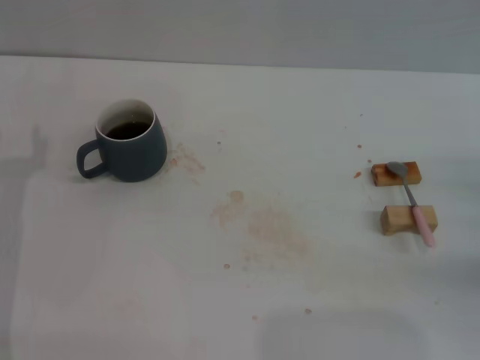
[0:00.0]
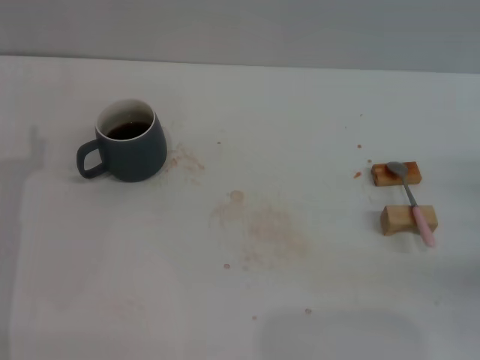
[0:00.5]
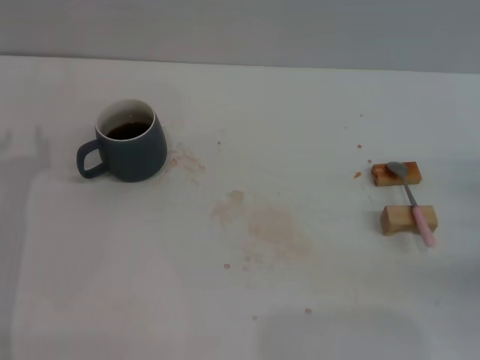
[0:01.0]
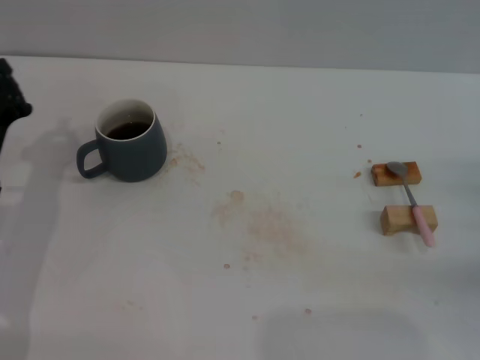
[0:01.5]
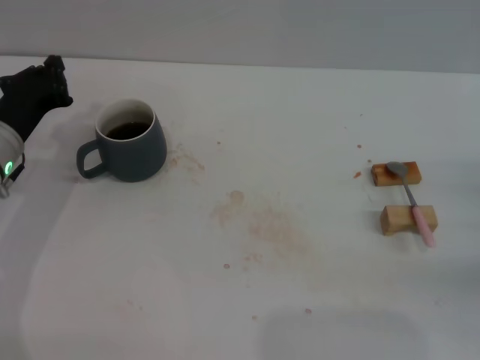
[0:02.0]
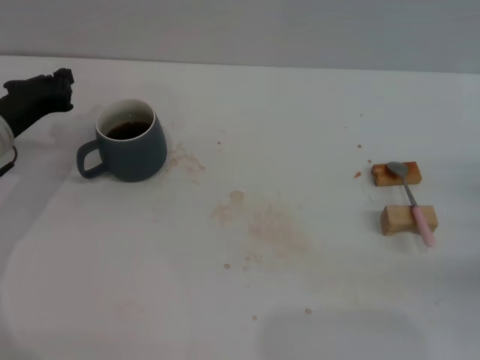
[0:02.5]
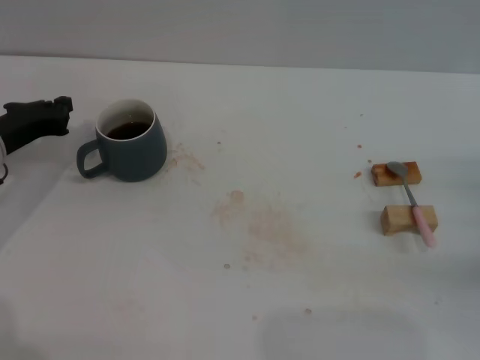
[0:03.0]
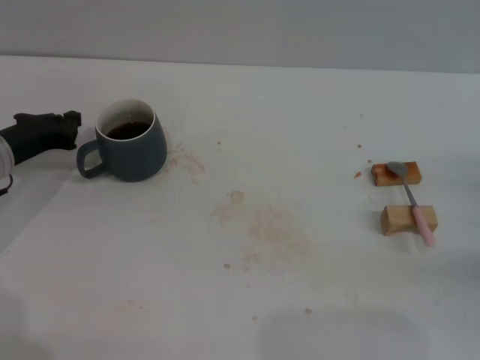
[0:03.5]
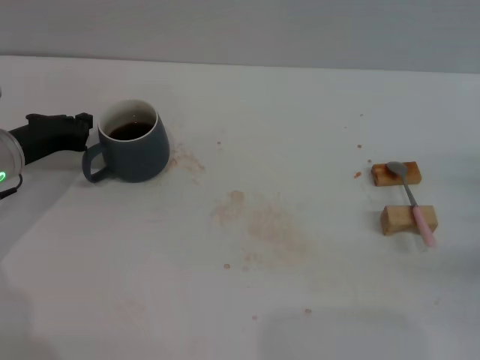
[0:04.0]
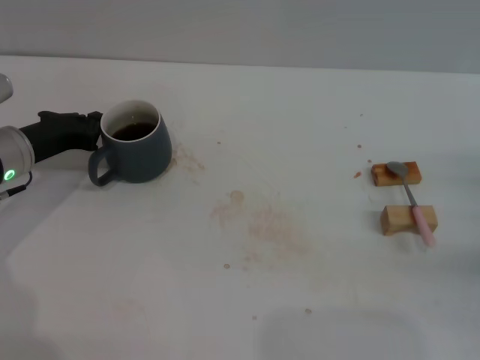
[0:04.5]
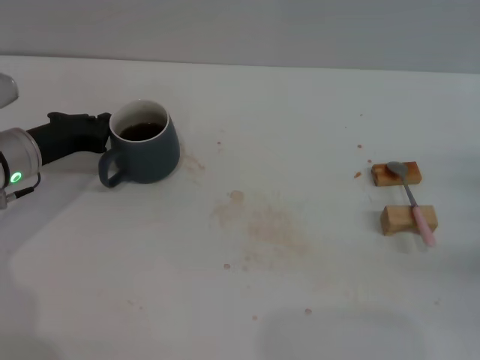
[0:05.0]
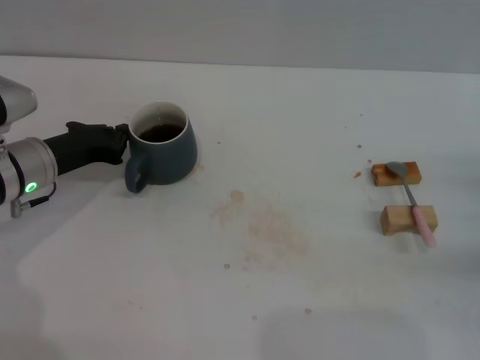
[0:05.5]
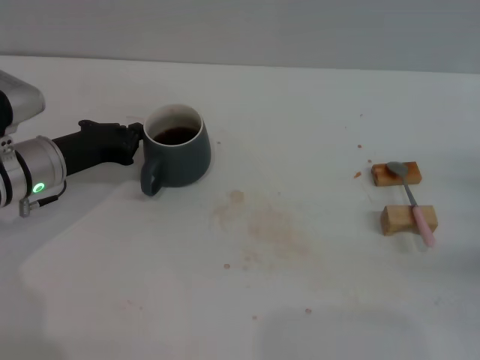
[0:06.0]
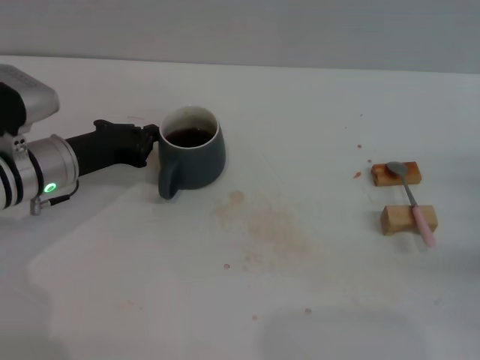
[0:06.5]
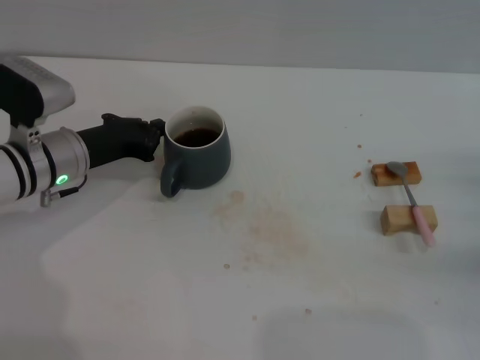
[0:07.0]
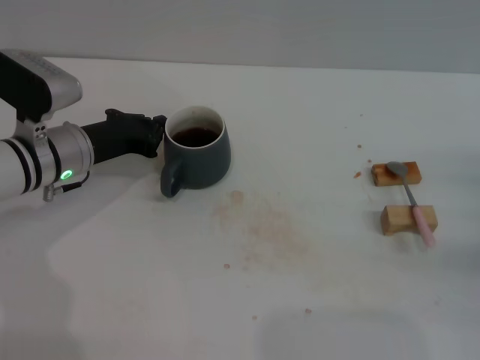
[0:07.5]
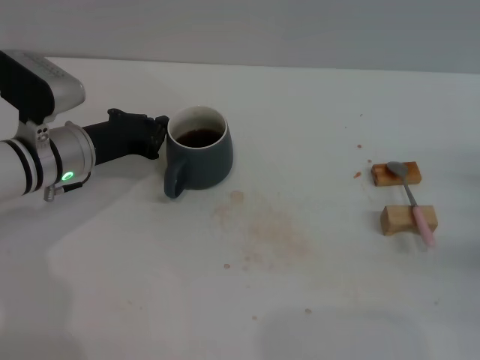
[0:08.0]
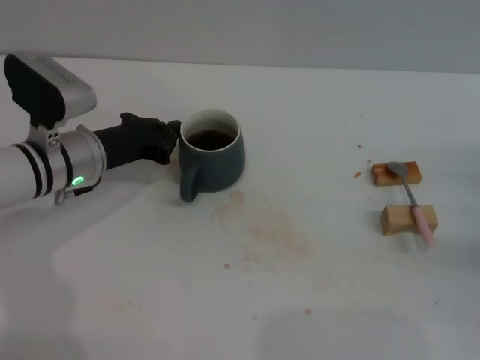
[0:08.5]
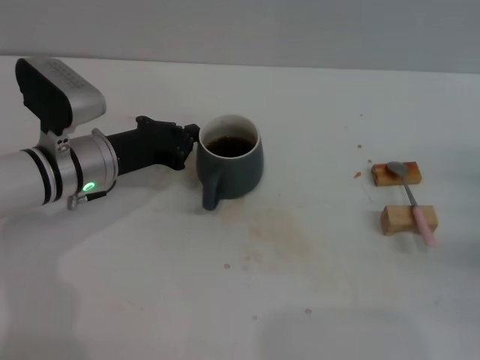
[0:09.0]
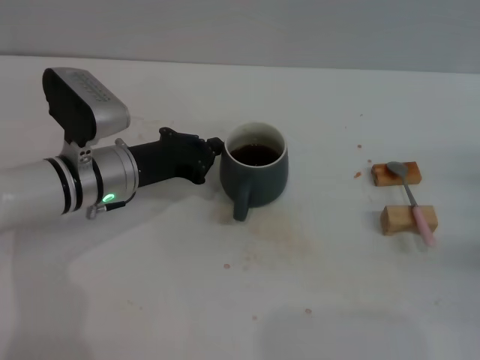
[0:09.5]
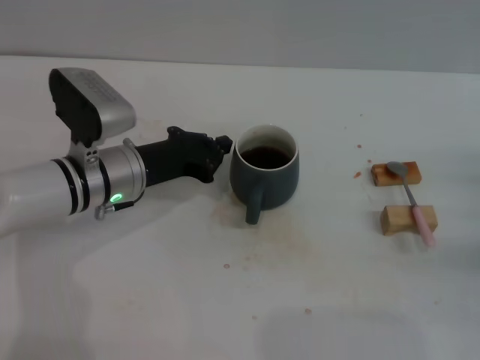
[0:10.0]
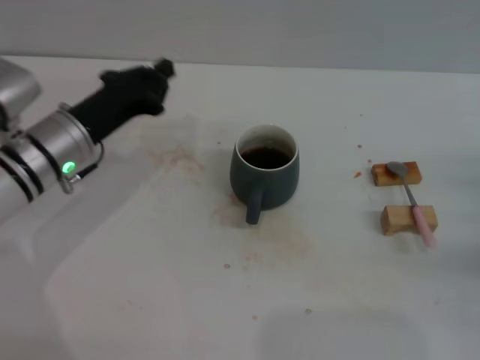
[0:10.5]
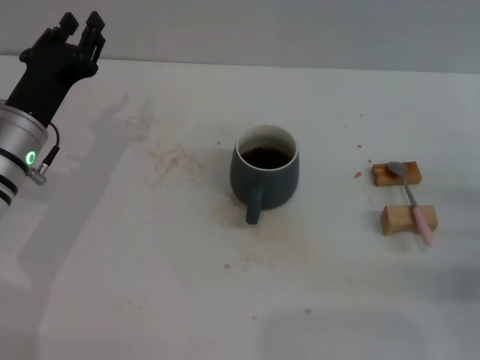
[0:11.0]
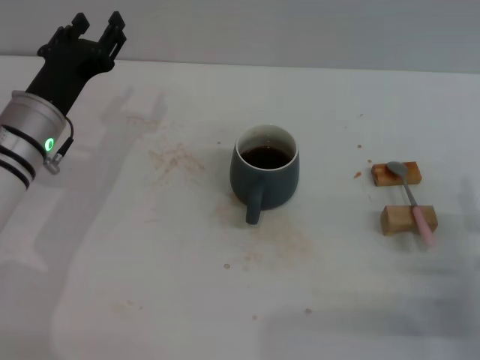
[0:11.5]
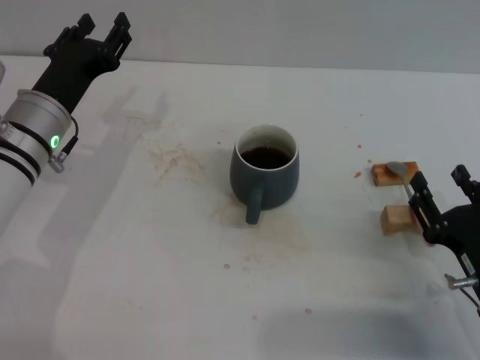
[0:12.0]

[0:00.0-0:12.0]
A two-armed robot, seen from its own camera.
Task of the whole recording: Move the grey cup to the center, lift the pink spoon, stir it three times in the cup, and put the spoon into the cup.
Step, 0:00.0 to 0:10.0: Move the cup with coffee to the center of view with the left gripper.
0:00.0 to 0:02.0: The left gripper shifts roughly 10 cm forward, and closes.
0:04.0 to 0:06.0: There are only small adjustments of the grippers.
0:06.0 to 0:08.0: There are only small adjustments of the grippers.
0:08.0 to 0:10.0: The left gripper travels to the right by about 5 cm.
0:10.0 to 0:12.0: The right gripper is displaced to the left and backward by about 15 cm. The left gripper heads to the left, covering roughly 5 cm, and opens up.

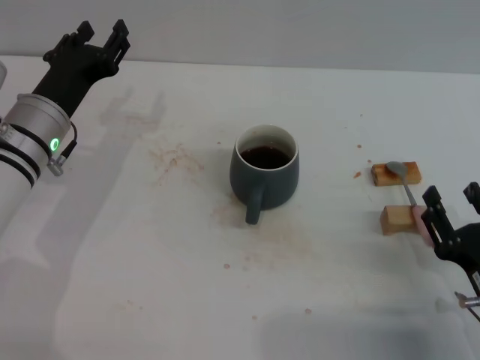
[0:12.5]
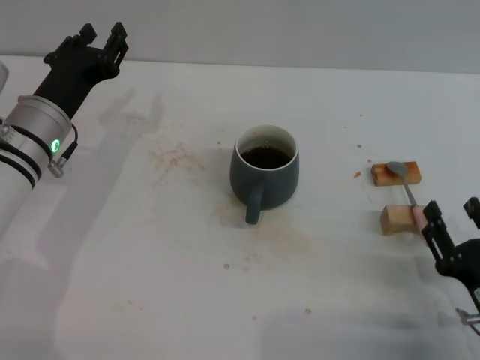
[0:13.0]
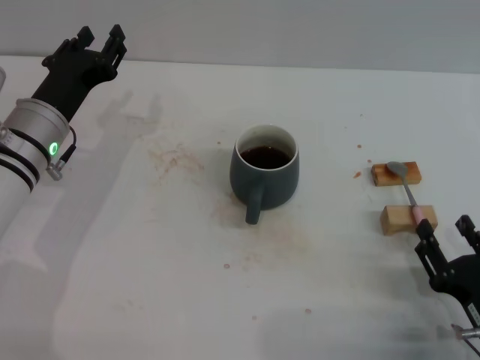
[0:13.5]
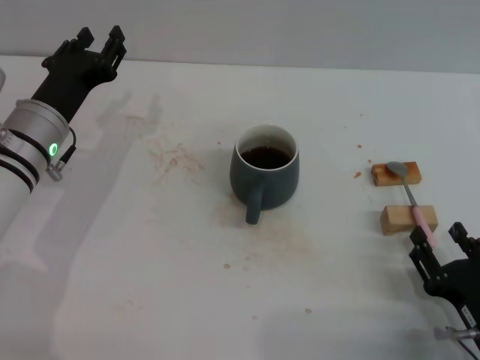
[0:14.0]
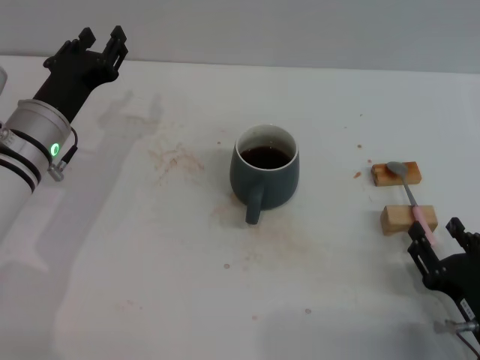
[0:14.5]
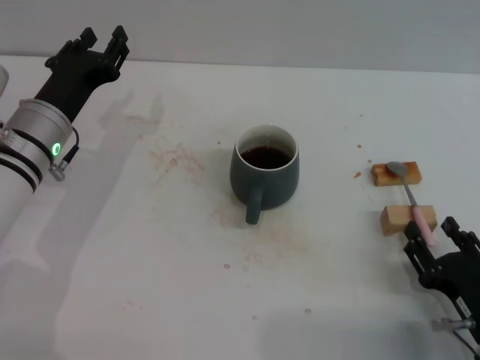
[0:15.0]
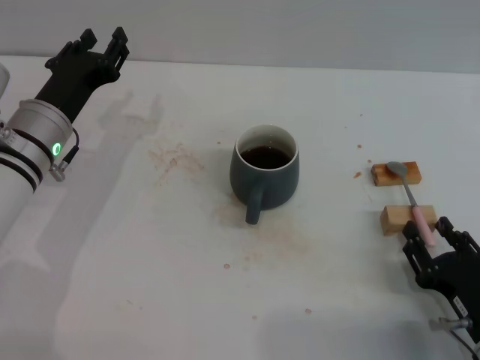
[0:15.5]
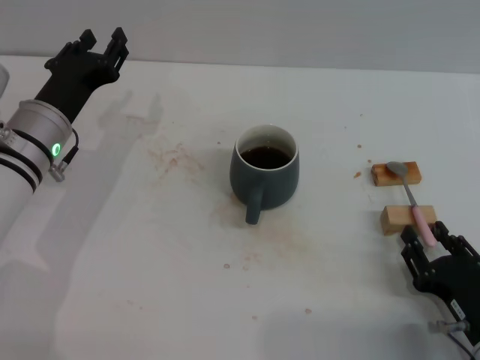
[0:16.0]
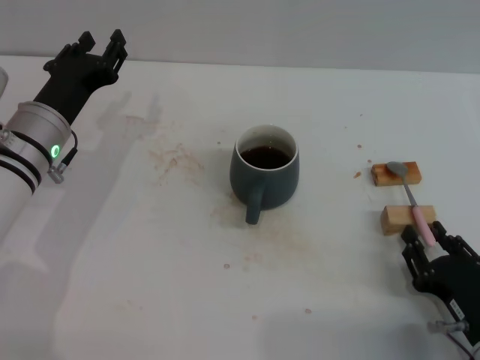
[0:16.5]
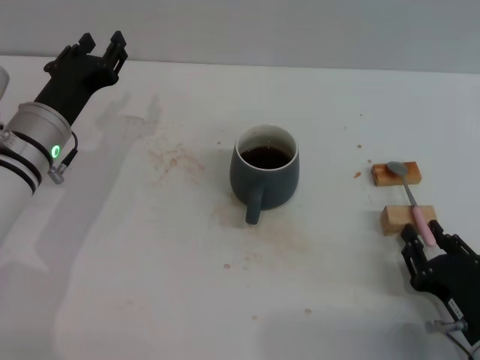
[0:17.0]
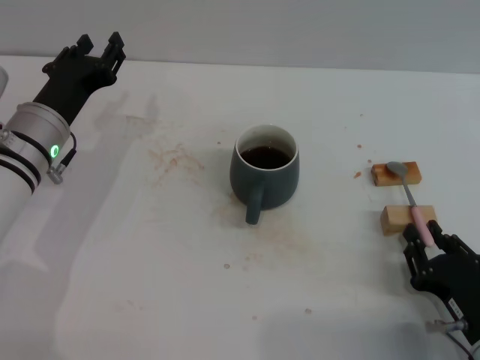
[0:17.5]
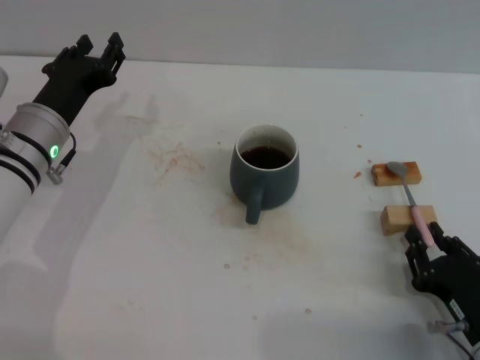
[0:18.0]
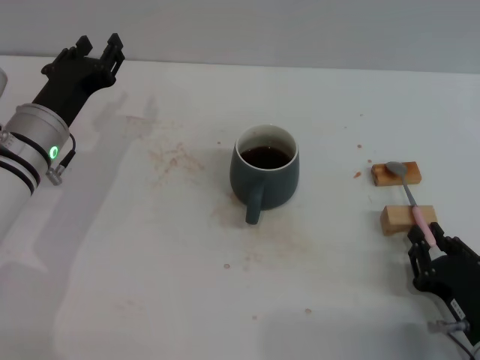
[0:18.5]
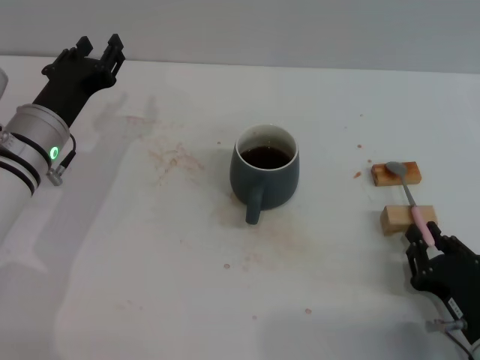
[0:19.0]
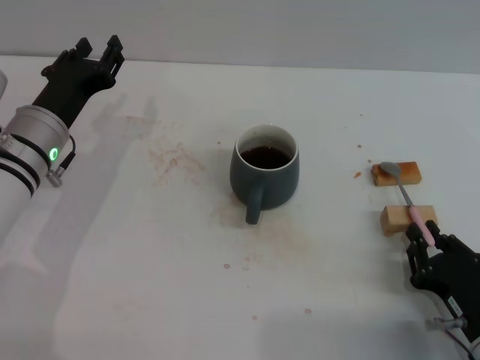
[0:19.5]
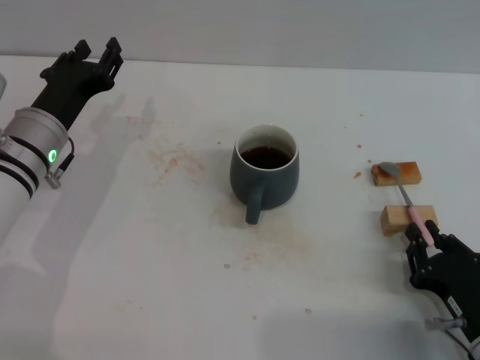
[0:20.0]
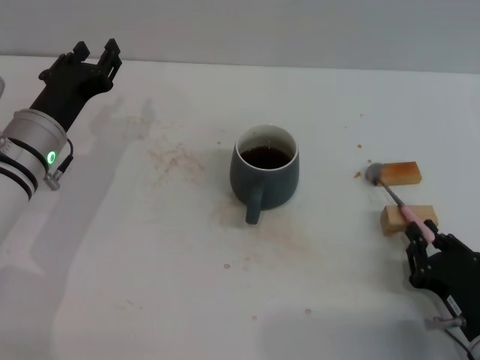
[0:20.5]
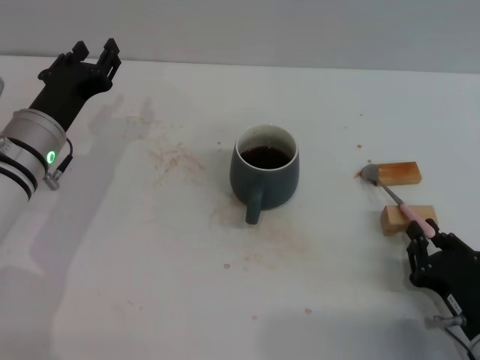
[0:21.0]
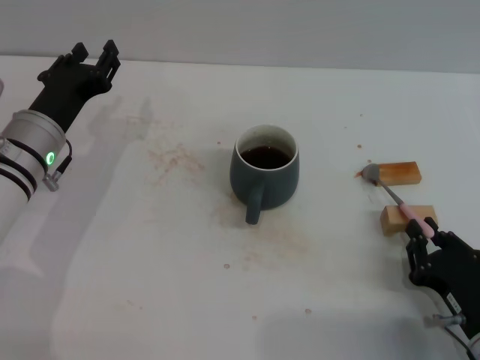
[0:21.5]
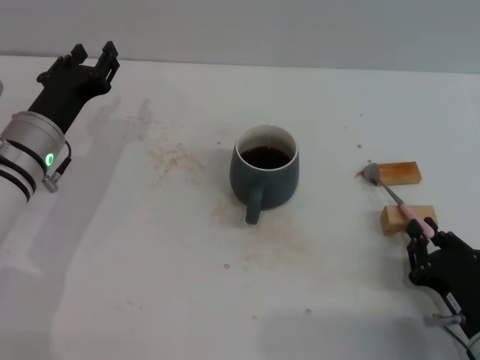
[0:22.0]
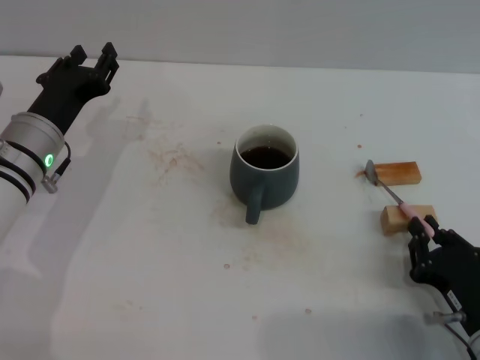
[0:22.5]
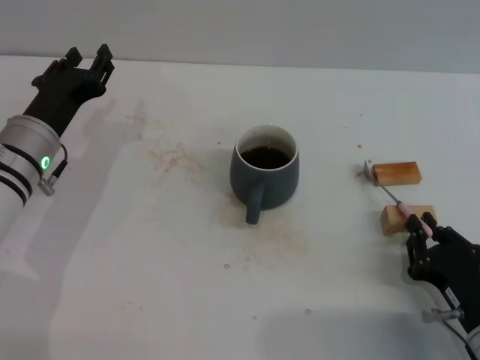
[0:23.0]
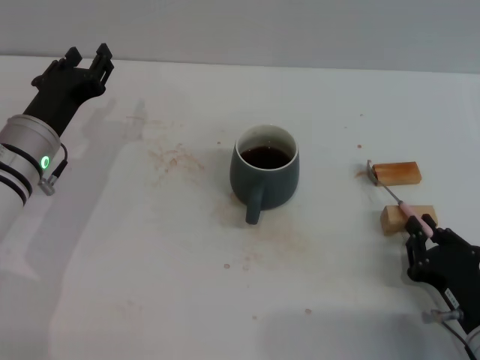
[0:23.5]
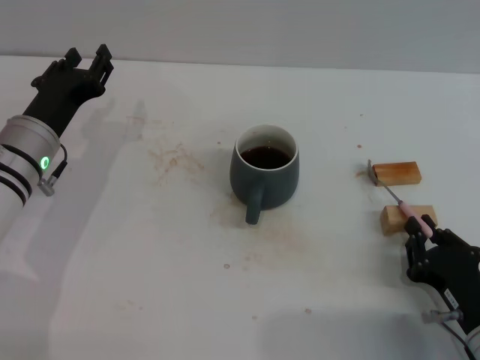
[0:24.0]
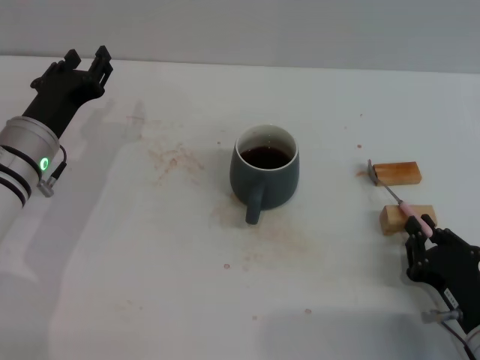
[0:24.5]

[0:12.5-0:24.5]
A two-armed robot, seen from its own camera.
Task of the whole recording: Move the grey cup to the center, lift the pink spoon, stir it three times in the cup, and put the spoon into the cup.
0:12.5 to 0:14.5: There are only small adjustments of the grippers.
0:14.5 to 0:16.5: The right gripper closes up.
0:16.5 to 0:22.5: Neither gripper changes place.
0:22.5 to 0:24.5: Both grippers stay about where they are.

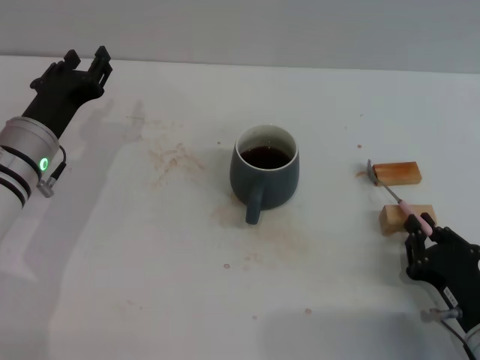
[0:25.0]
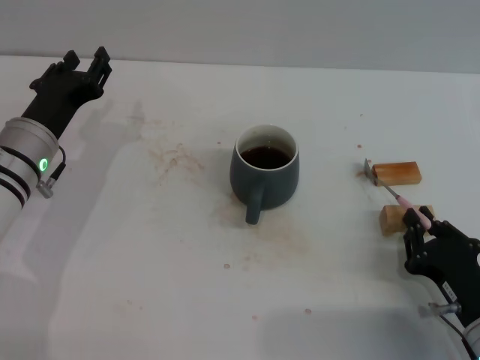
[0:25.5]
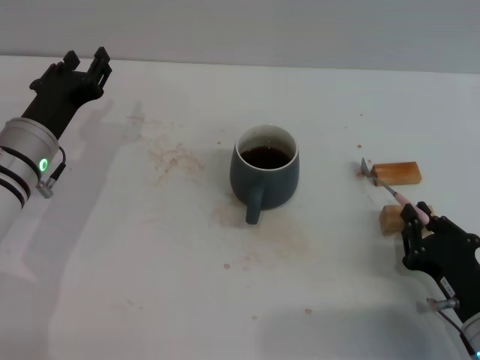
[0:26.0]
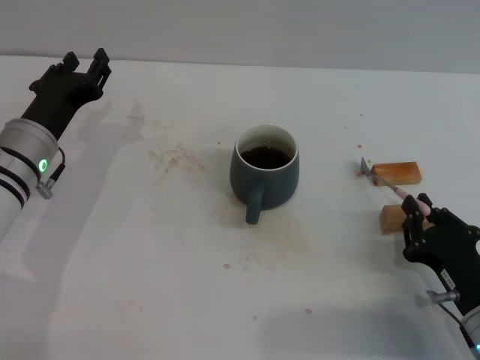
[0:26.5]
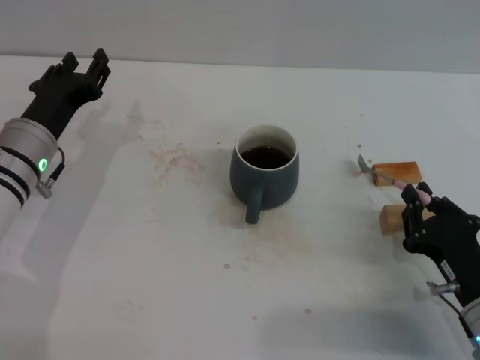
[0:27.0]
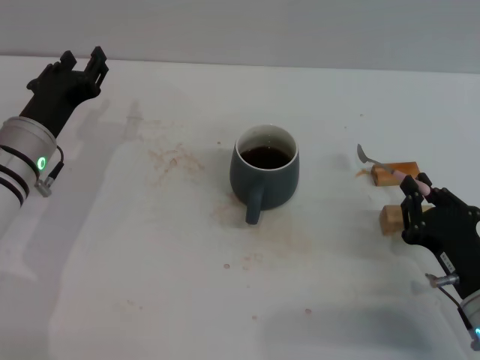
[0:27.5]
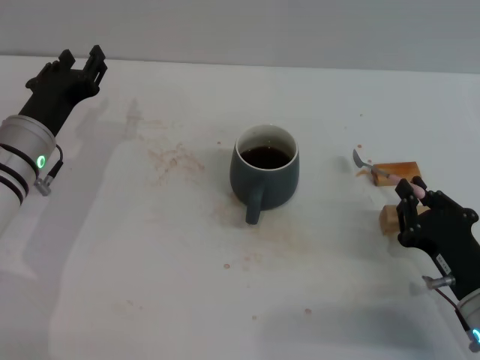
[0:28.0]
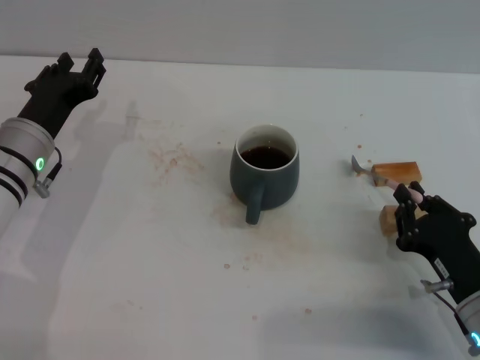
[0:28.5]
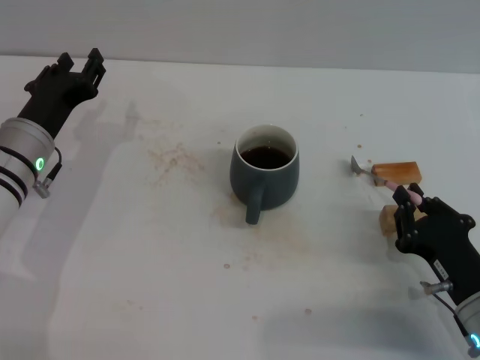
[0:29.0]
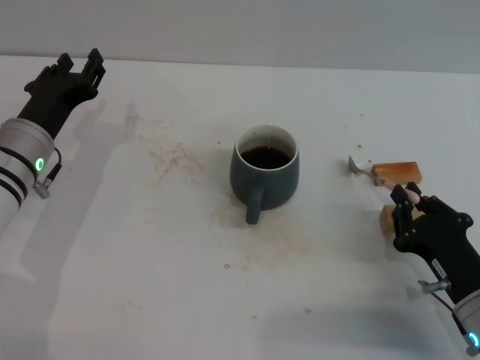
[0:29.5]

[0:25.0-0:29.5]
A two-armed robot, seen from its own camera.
Task of the whole recording: Move the grey cup to the center, lift the pink spoon, stir it three times in the cup, and put the spoon into the cup.
0:25.0 to 0:27.0: There are only small adjustments of the grippers.
0:27.0 to 0:29.5: Neither gripper changes place.
